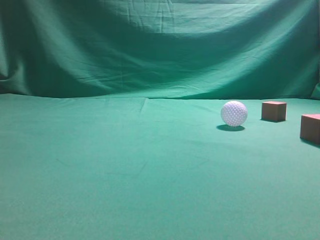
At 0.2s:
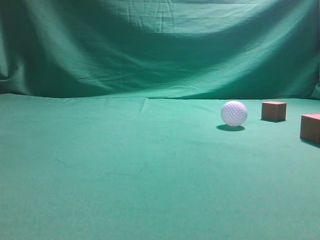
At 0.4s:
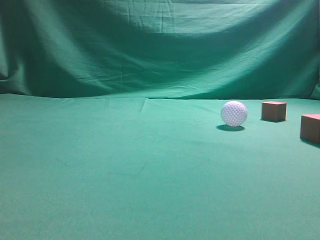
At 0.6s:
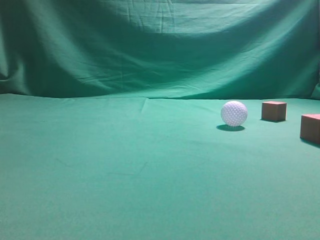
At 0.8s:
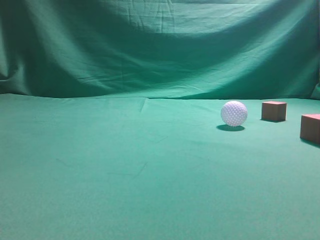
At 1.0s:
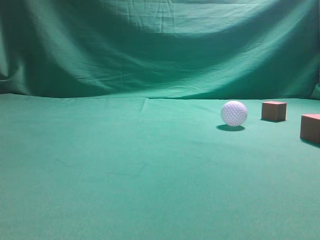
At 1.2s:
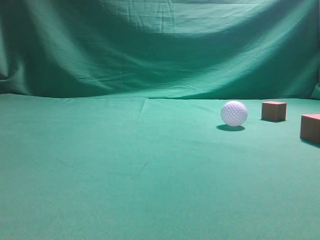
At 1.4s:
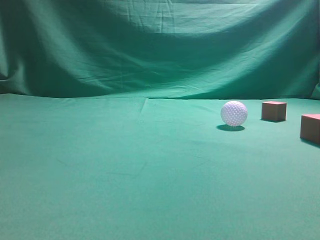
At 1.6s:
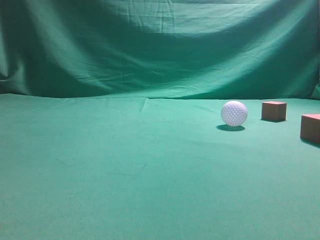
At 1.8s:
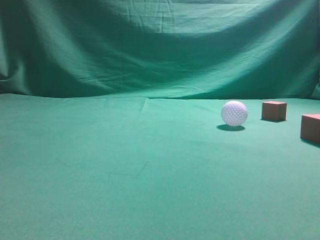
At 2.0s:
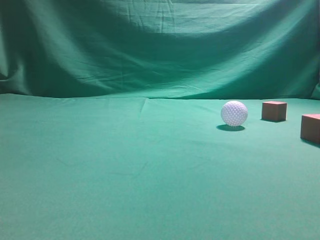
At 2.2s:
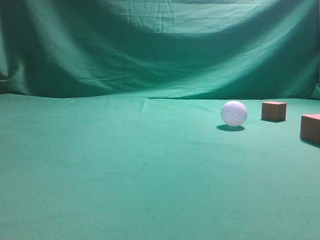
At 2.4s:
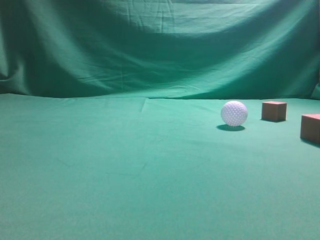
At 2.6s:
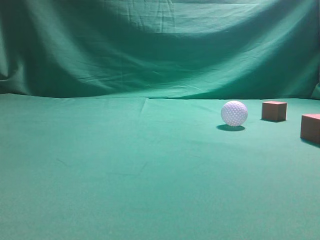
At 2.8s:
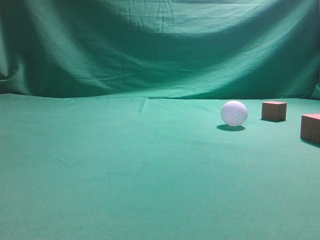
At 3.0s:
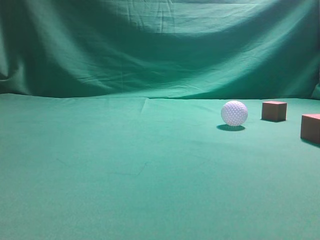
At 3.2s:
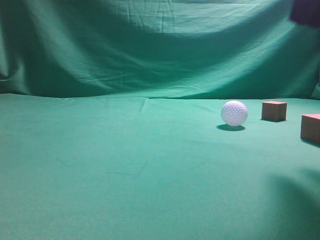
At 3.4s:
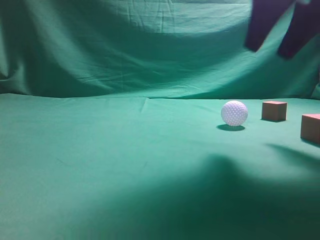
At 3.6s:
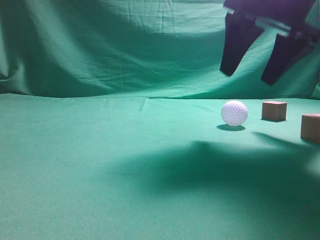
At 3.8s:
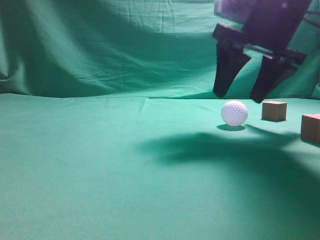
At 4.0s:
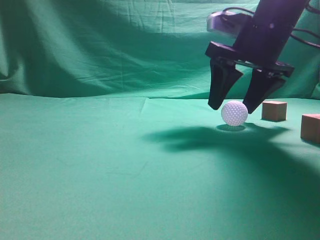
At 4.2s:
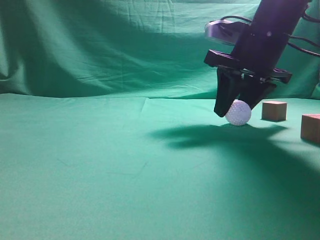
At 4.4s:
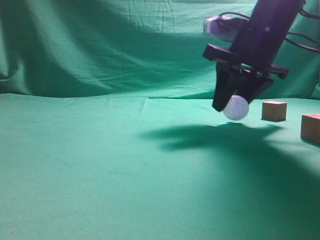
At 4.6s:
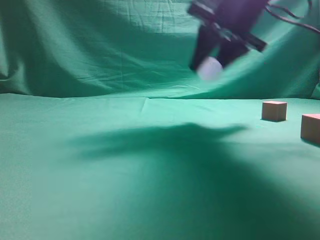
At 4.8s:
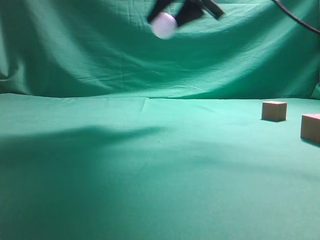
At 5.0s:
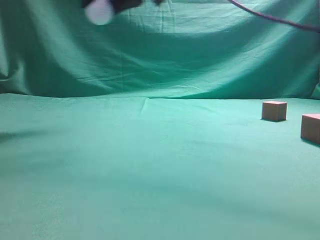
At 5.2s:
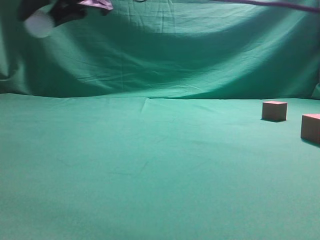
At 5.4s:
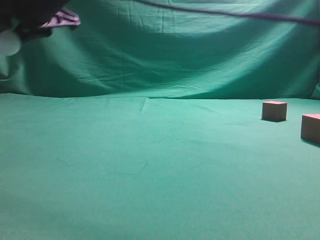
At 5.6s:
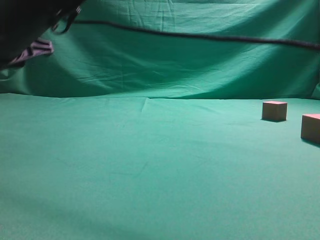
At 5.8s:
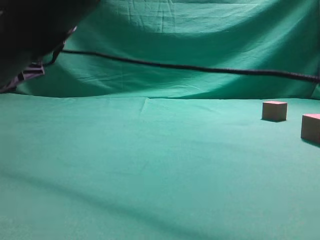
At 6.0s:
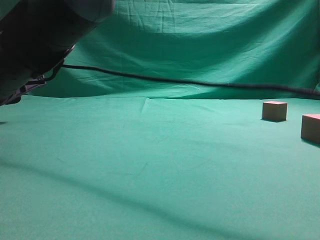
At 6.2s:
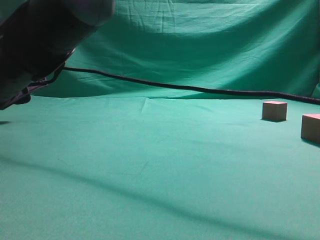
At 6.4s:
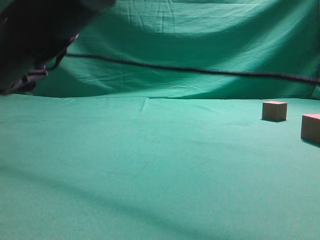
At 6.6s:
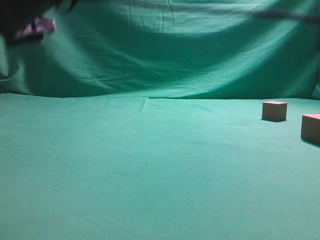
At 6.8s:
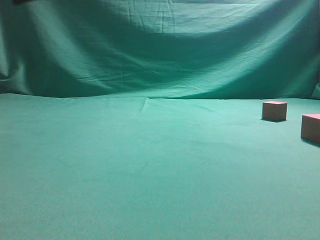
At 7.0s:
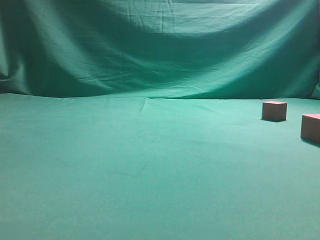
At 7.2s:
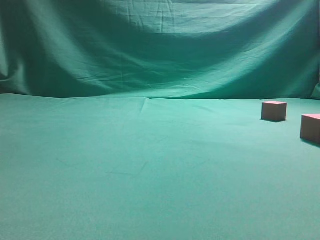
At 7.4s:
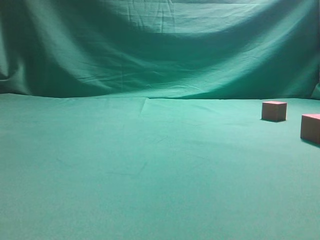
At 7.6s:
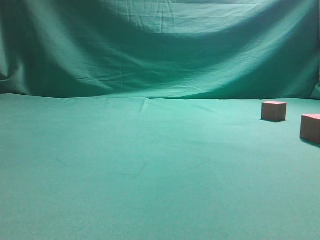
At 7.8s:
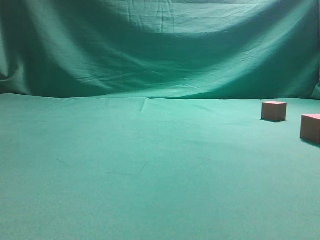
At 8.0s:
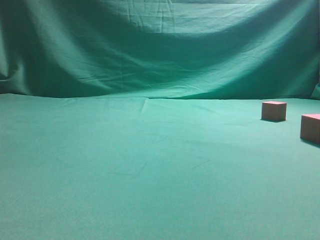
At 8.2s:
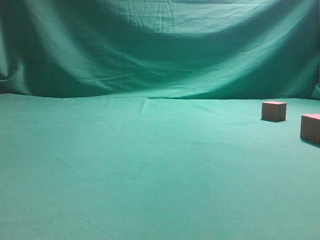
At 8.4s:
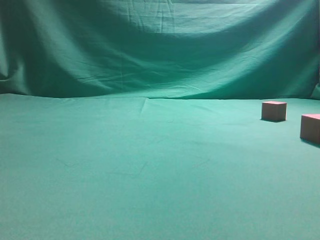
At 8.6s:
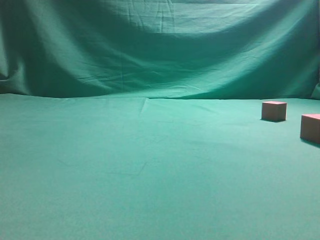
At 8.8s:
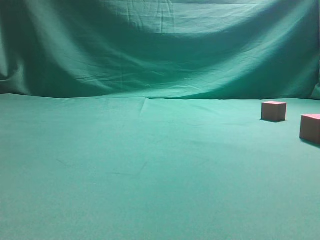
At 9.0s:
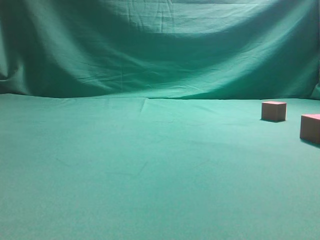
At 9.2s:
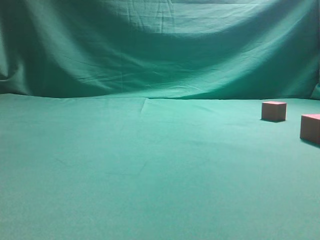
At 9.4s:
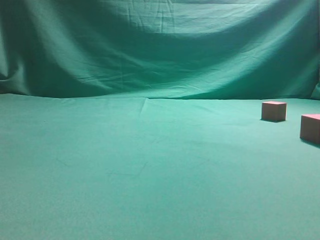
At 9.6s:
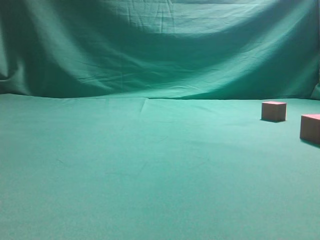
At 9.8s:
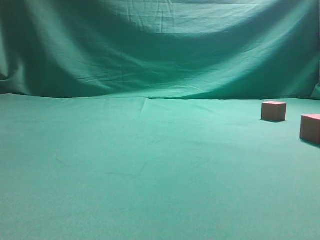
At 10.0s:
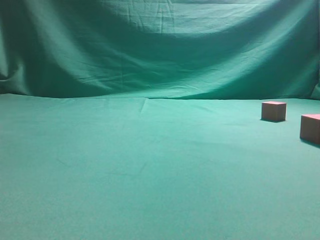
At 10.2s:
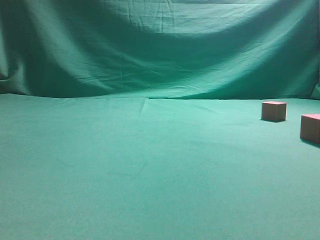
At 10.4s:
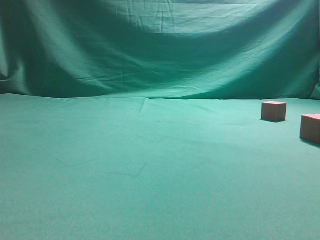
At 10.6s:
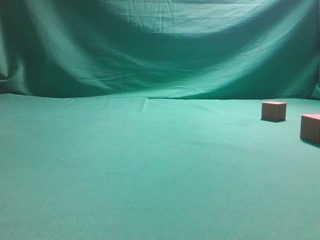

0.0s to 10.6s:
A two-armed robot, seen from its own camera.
Step, 0.0s to 3.6s: Grasp the spherical object on the right side.
3.0s to 4.6s: The right gripper moves forward and to the left, about 20 cm, and opens.
4.6s to 6.0s: The right gripper goes roughly 35 cm to the left.
6.0s to 7.6s: The right gripper goes roughly 40 cm upward and to the right, and closes its fingers.

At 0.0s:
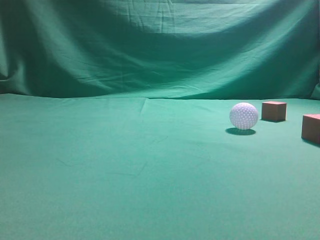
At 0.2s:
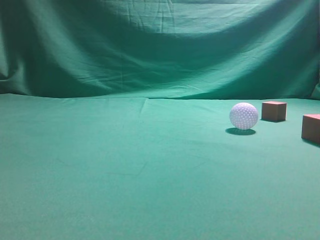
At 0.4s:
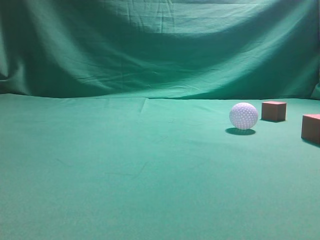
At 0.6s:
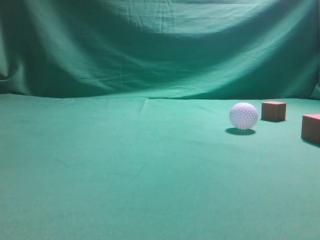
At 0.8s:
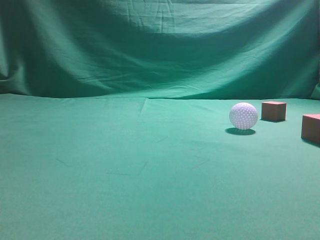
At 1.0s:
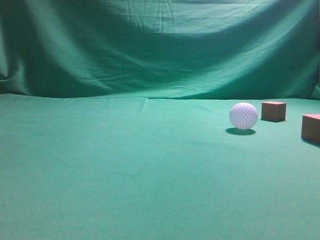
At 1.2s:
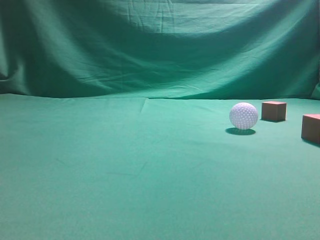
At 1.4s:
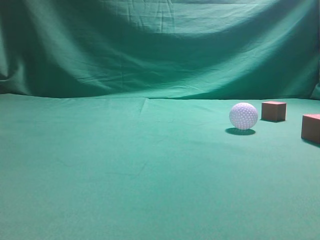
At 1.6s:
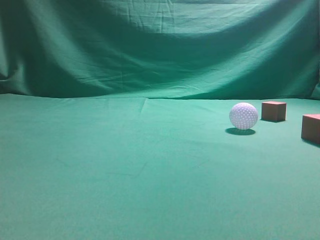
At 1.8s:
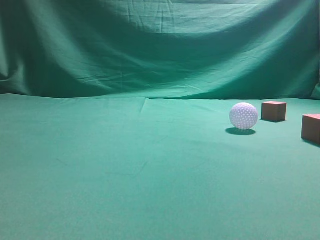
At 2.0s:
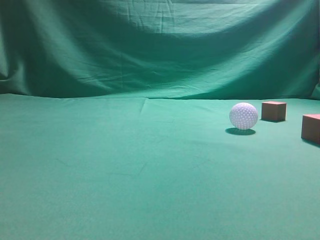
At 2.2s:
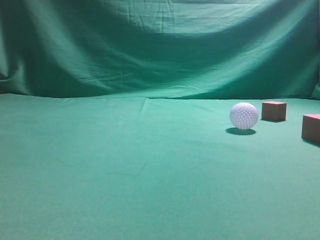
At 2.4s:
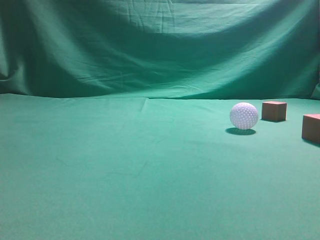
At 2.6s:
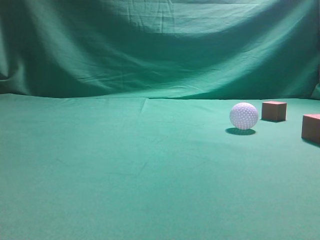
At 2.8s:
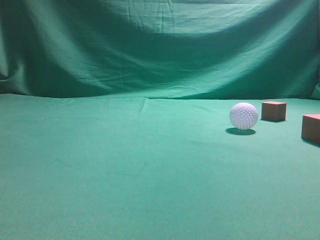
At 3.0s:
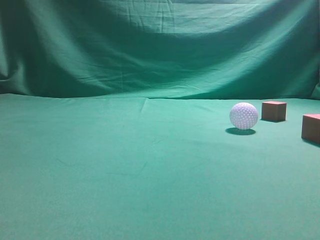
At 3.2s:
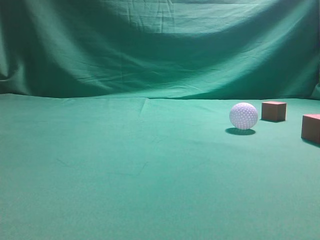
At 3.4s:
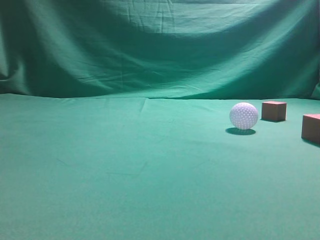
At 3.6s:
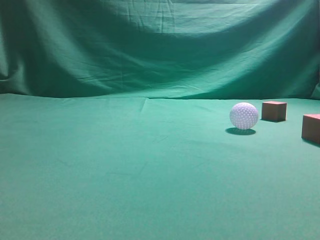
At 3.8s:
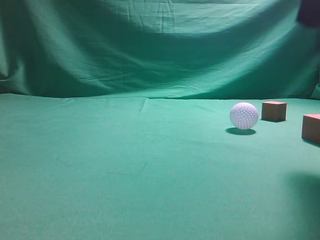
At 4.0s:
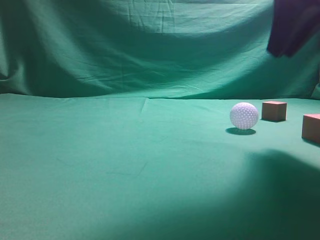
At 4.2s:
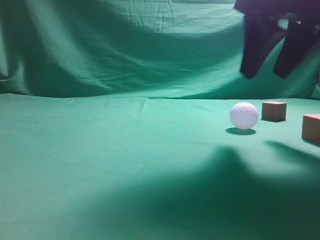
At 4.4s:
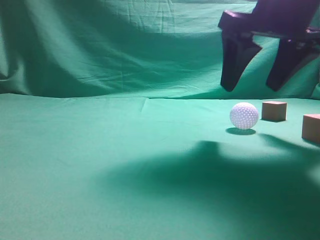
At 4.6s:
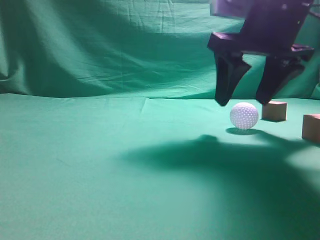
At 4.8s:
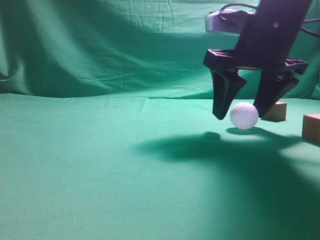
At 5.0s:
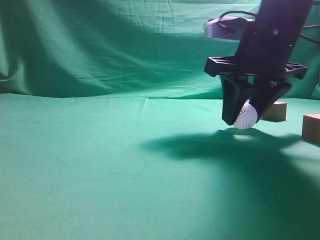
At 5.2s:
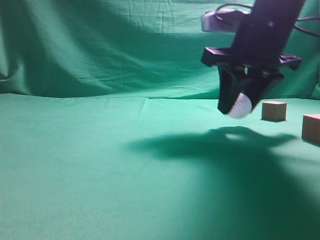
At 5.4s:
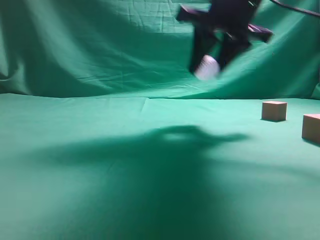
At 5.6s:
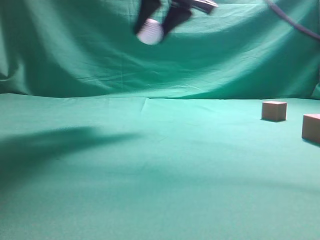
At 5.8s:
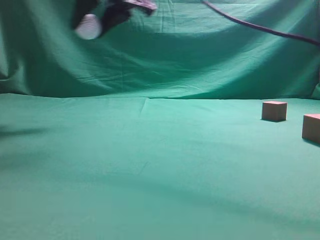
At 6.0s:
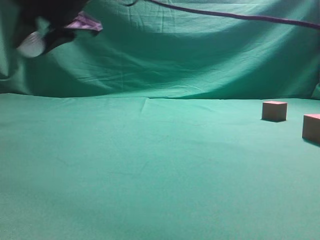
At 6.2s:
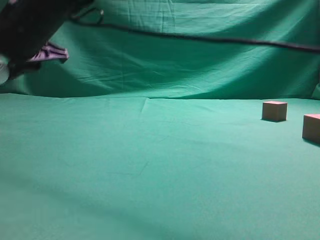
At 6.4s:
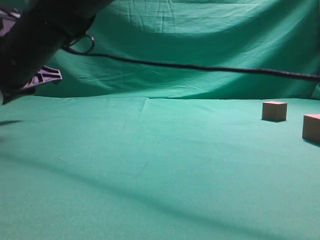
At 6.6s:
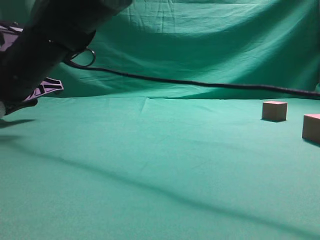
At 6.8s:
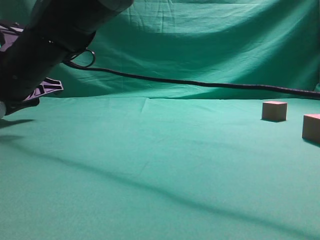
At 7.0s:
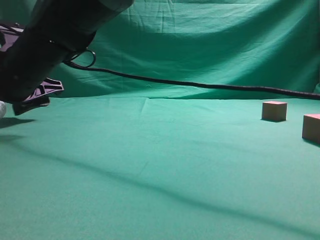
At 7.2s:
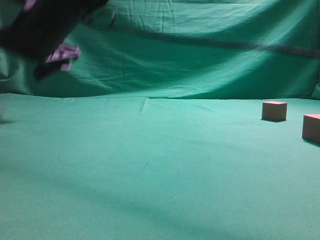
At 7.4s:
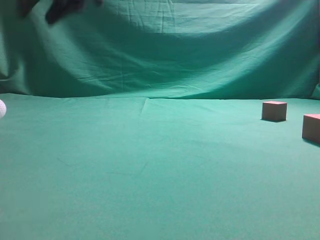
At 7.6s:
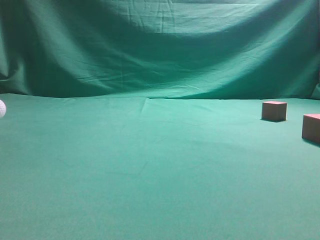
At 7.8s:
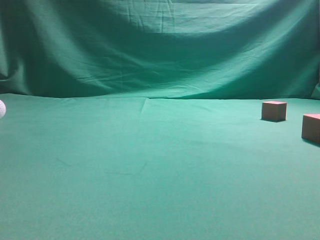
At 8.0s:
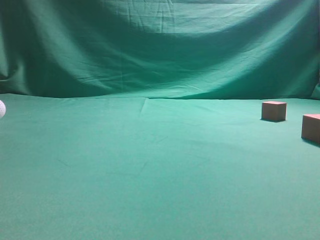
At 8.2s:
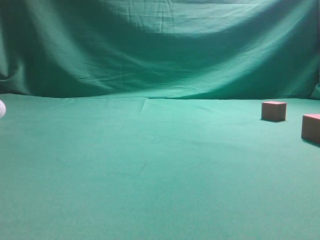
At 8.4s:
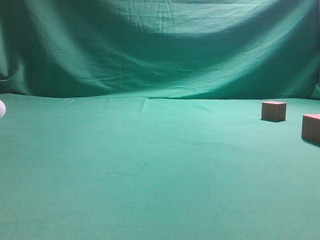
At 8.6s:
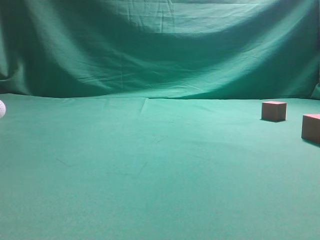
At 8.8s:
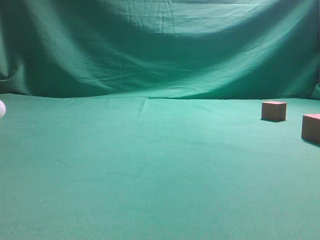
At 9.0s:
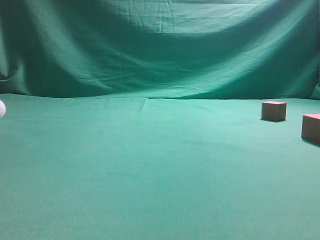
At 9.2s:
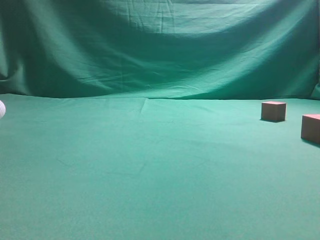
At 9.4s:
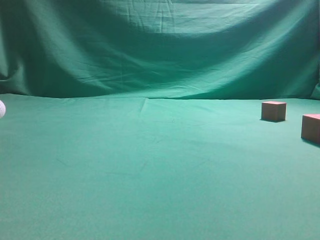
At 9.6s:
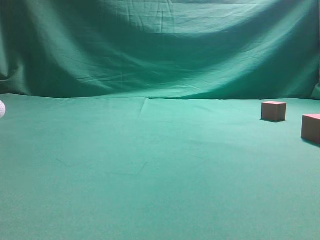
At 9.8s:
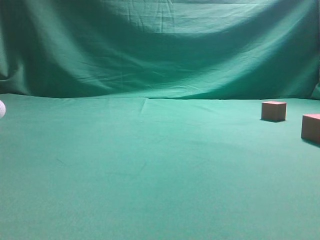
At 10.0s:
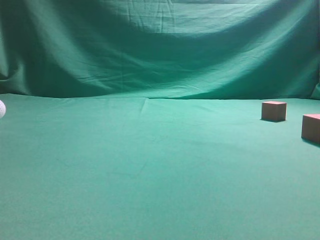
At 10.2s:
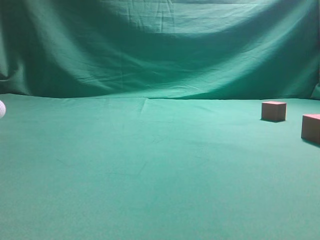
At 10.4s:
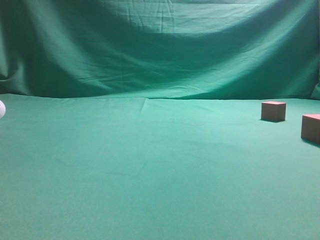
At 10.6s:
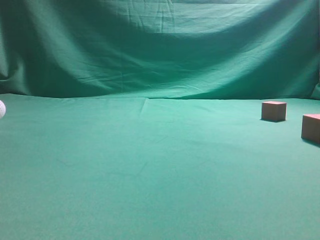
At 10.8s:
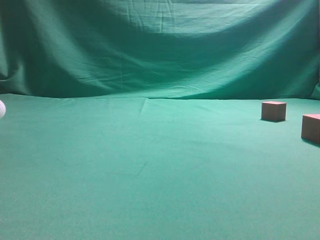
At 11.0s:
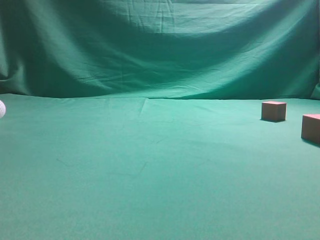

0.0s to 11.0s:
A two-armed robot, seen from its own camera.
Step, 0.0s to 5.2s: Grasp the spherical object on the right side.
3.2s to 4.8s: The right gripper heads forward, downward and to the left, covering about 30 cm, and opens its fingers.
4.8s to 6.2s: The right gripper moves to the left, some 30 cm, and closes up.
6.2s to 7.8s: The right gripper heads upward and to the right, covering about 35 cm, and closes.
